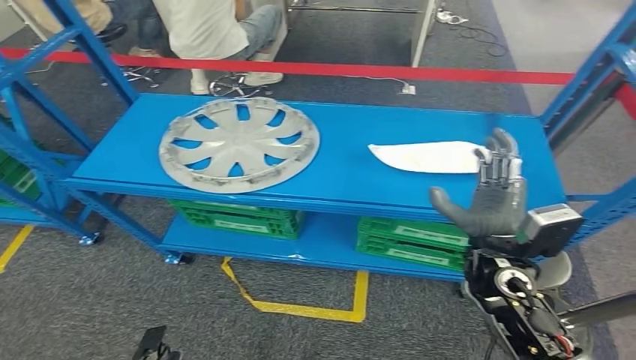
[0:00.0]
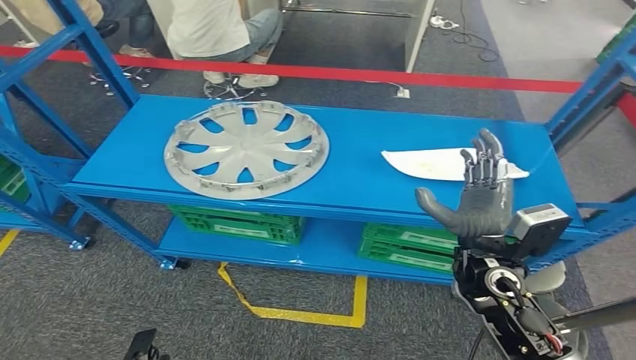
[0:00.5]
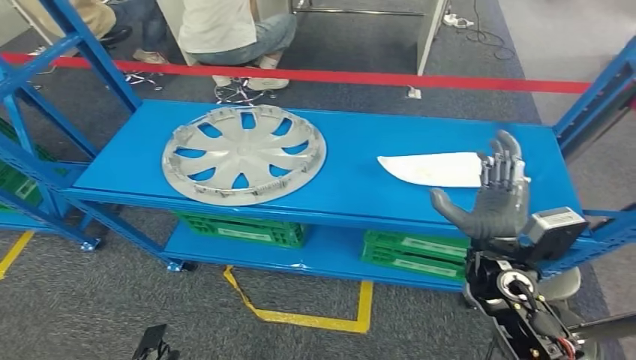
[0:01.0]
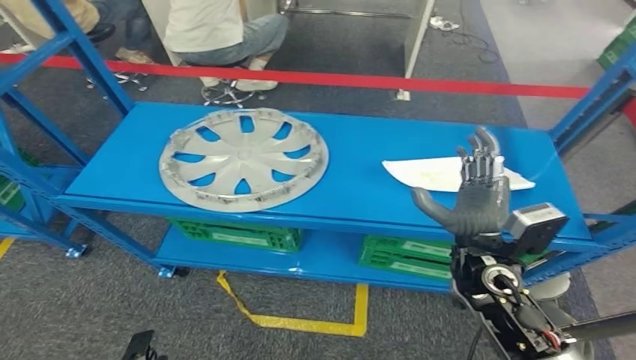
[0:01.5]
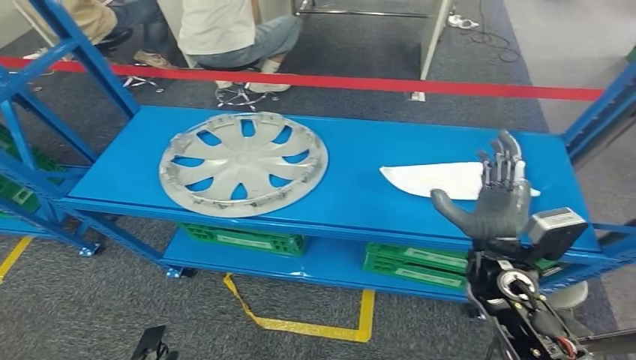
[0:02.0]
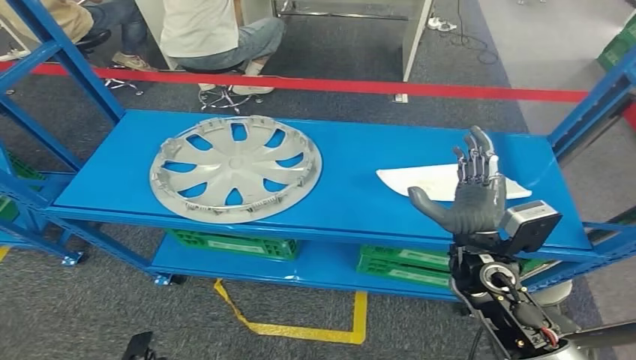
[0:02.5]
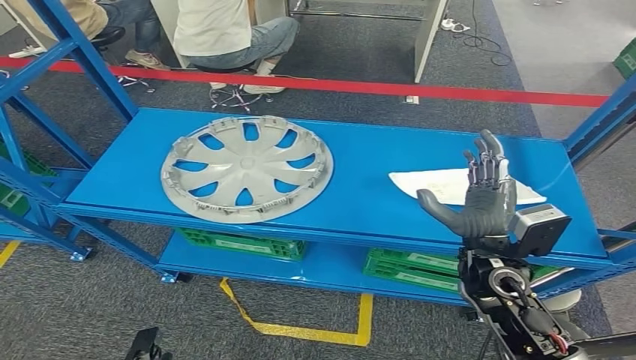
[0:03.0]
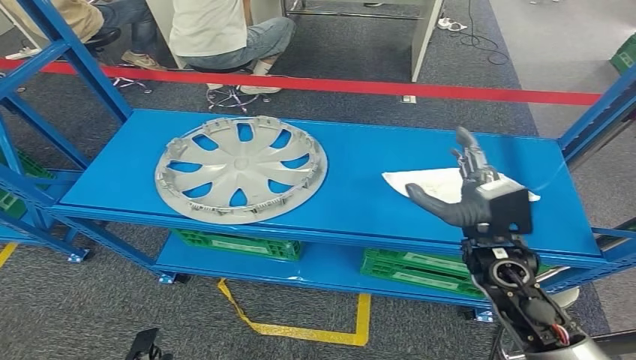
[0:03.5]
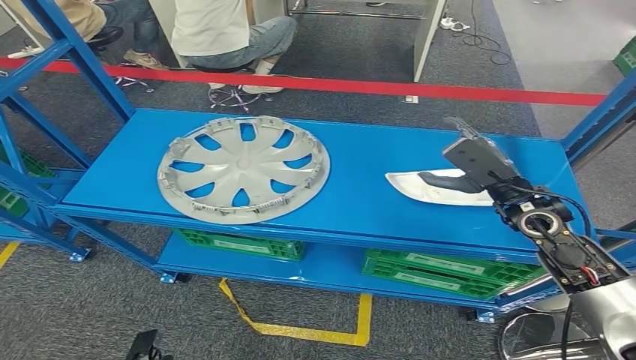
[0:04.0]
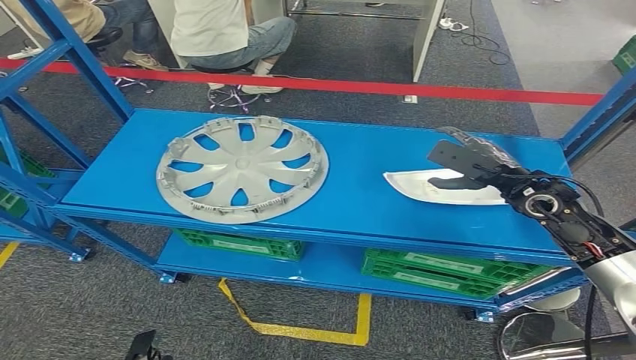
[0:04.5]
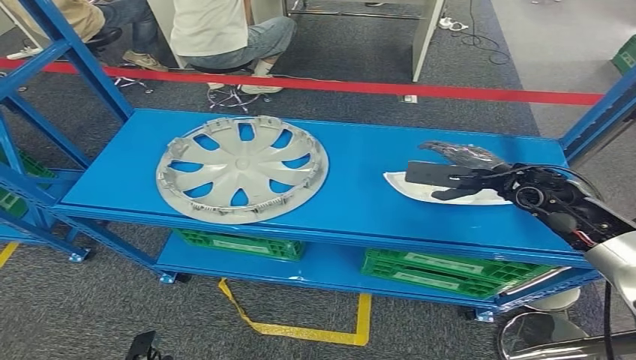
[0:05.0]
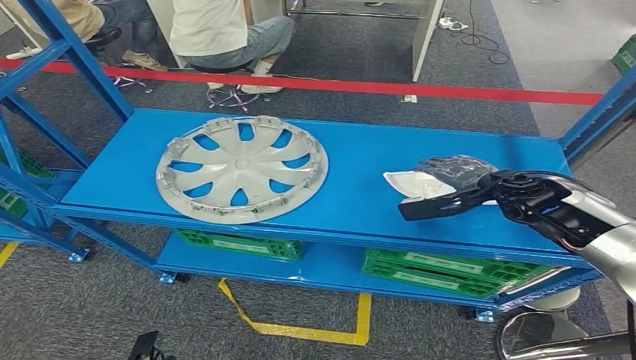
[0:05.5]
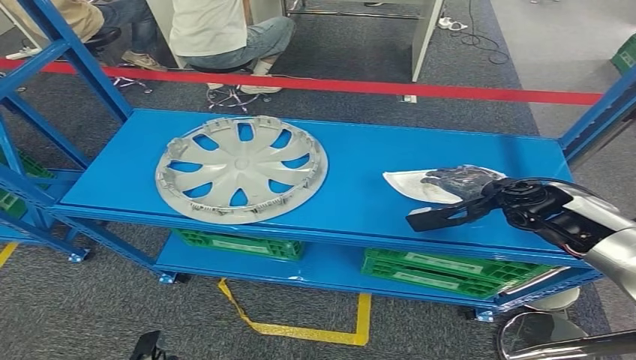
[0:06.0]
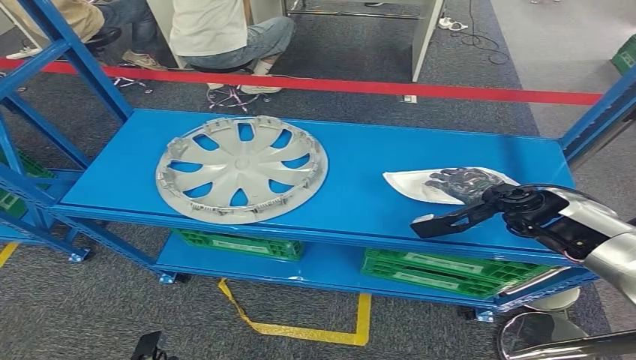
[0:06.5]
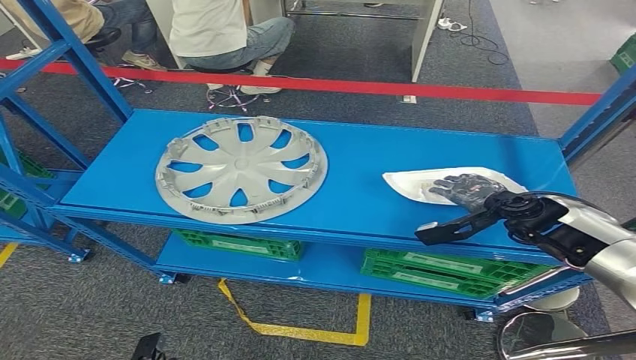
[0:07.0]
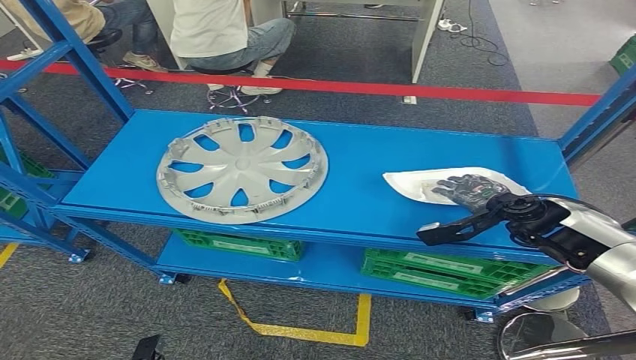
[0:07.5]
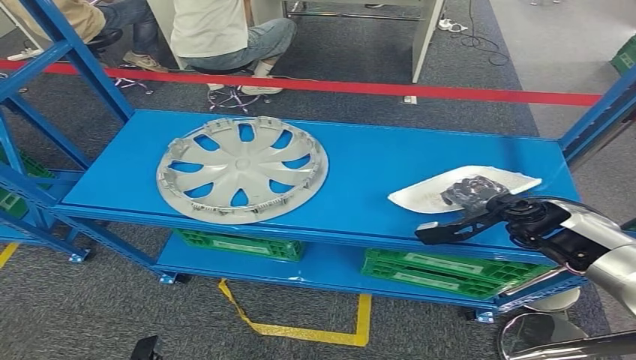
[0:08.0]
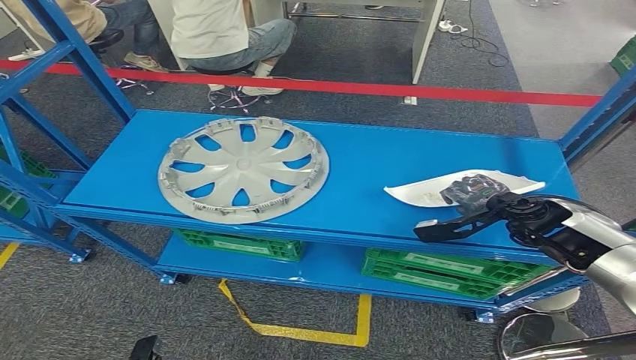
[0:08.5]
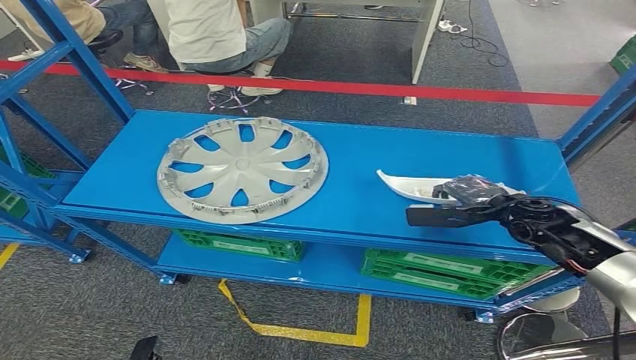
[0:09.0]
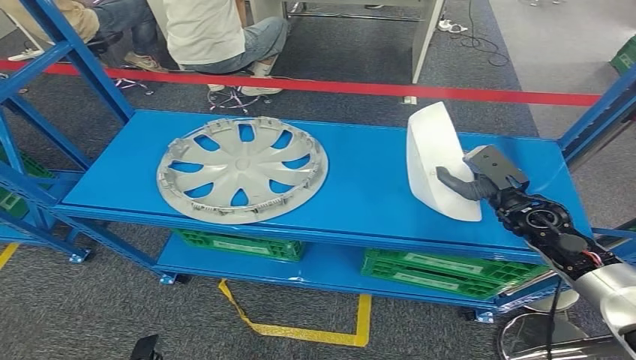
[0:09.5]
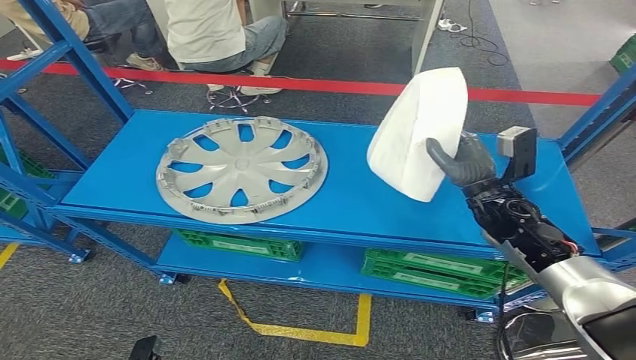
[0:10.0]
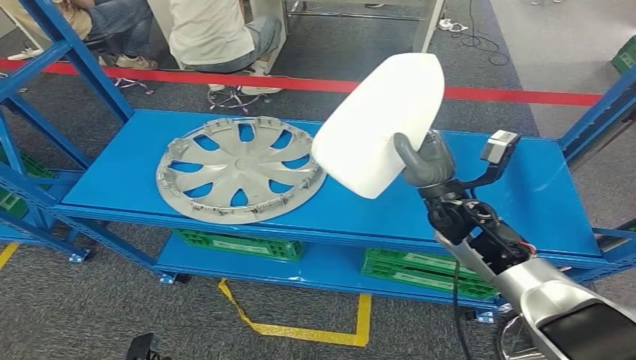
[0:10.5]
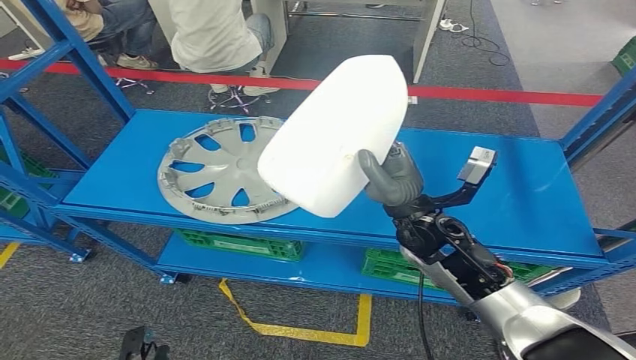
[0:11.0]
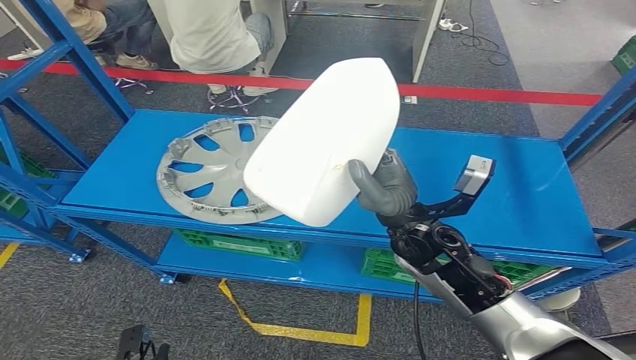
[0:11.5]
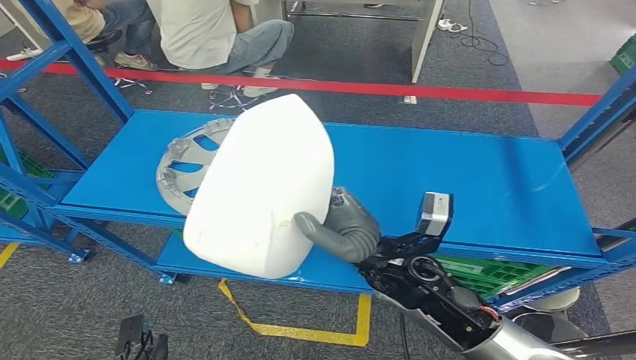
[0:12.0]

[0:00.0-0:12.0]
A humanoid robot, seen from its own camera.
Step, 0:00.0 to 0:10.5: Take small components from the rack.
0:06.0 to 0:08.0: The hands move only a little.

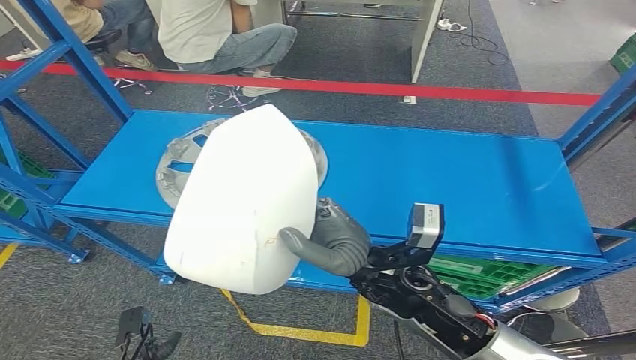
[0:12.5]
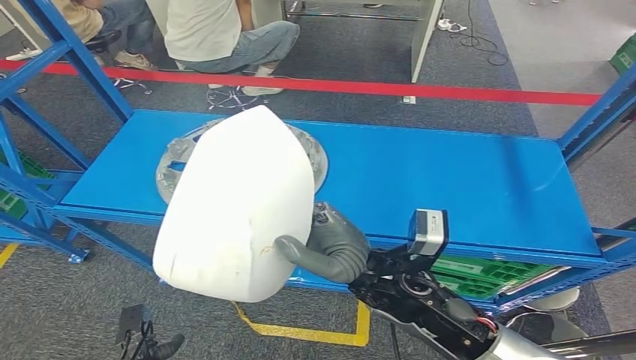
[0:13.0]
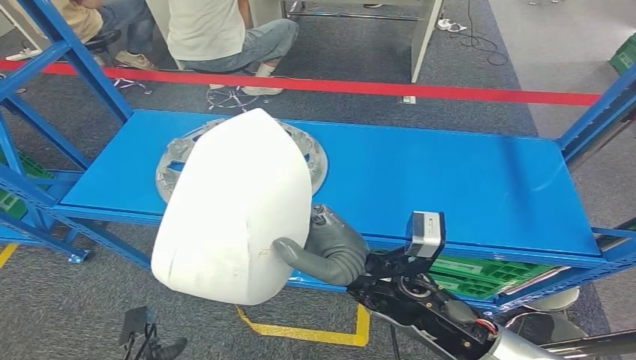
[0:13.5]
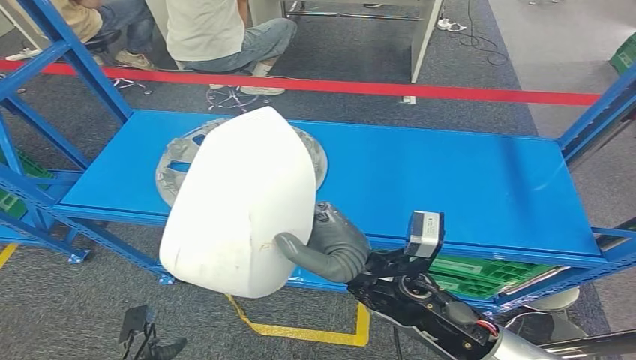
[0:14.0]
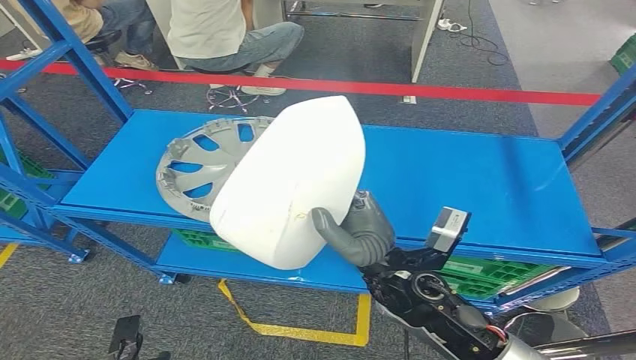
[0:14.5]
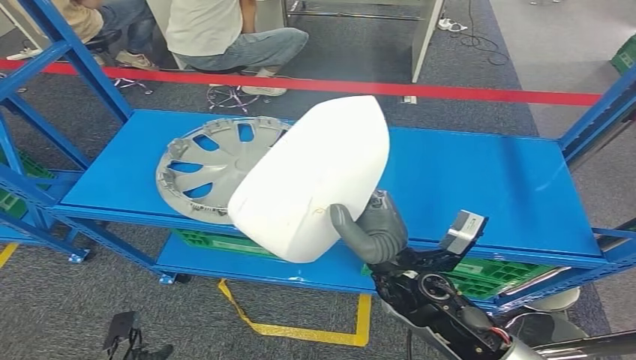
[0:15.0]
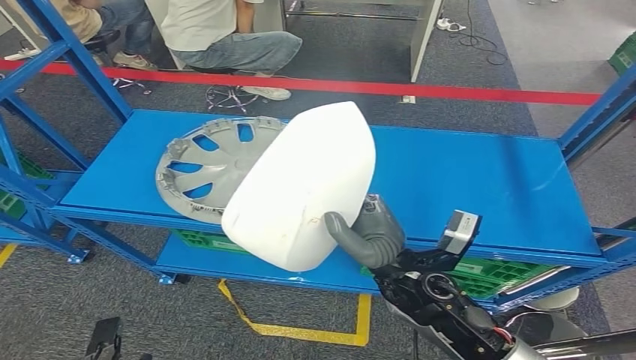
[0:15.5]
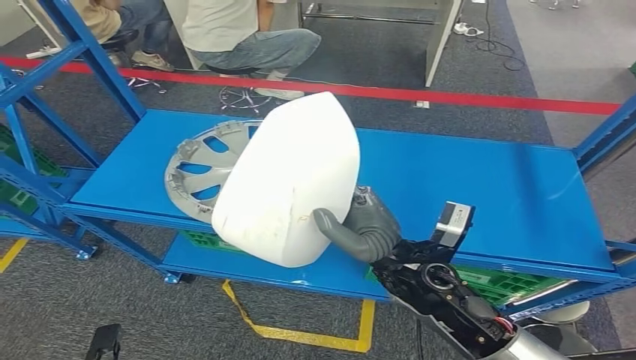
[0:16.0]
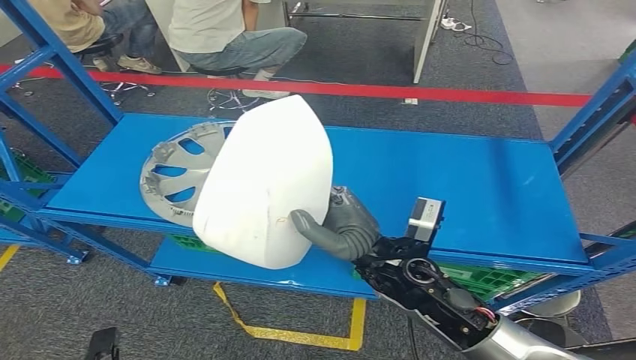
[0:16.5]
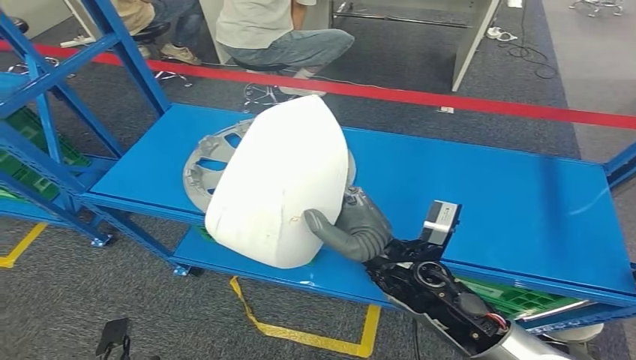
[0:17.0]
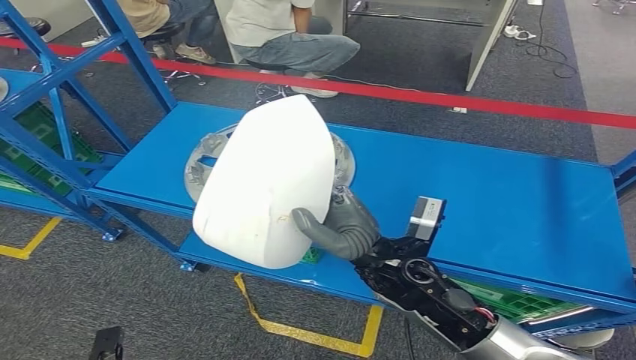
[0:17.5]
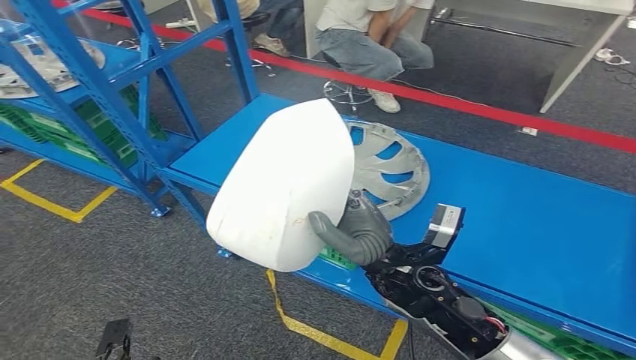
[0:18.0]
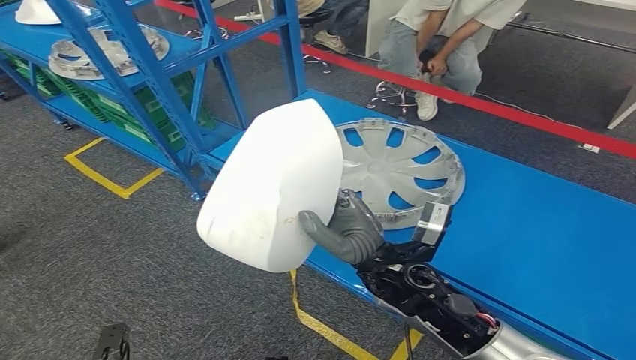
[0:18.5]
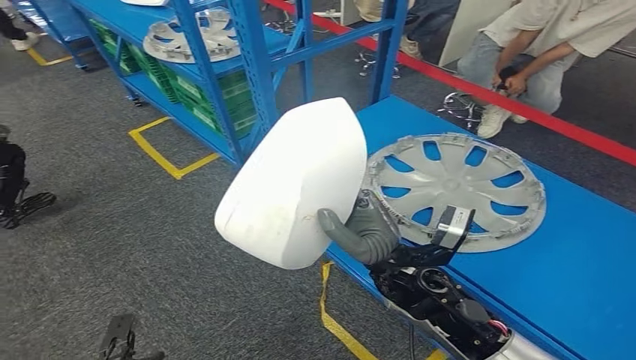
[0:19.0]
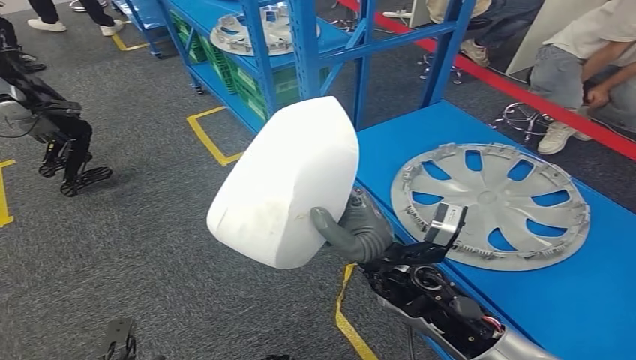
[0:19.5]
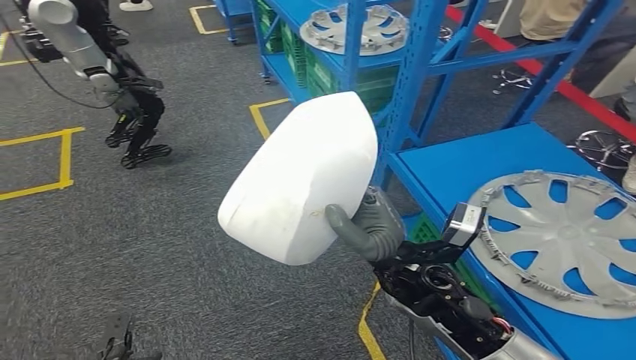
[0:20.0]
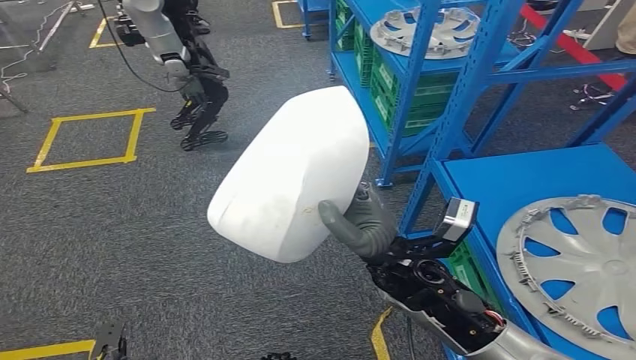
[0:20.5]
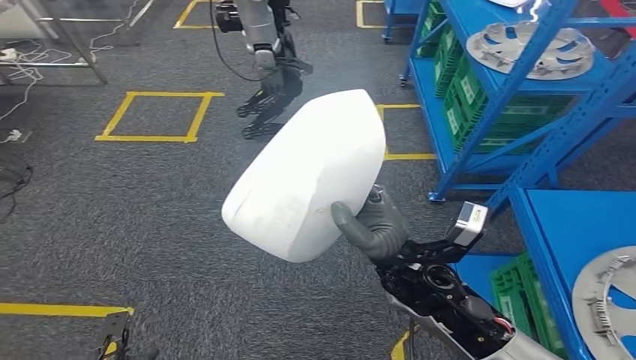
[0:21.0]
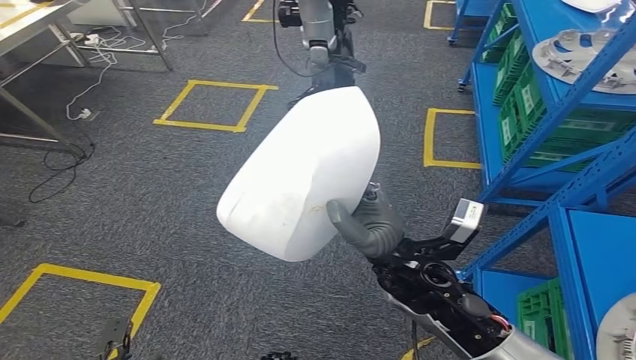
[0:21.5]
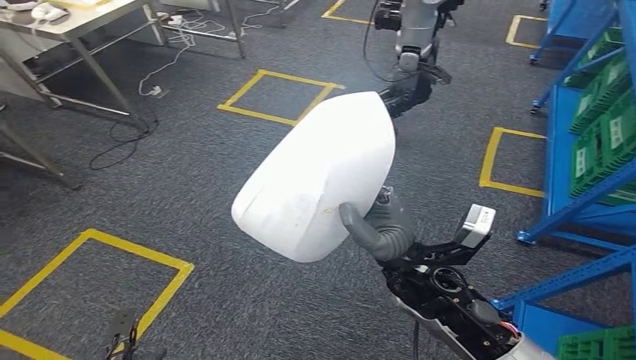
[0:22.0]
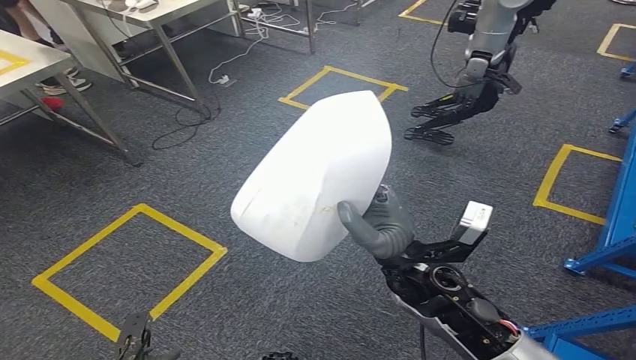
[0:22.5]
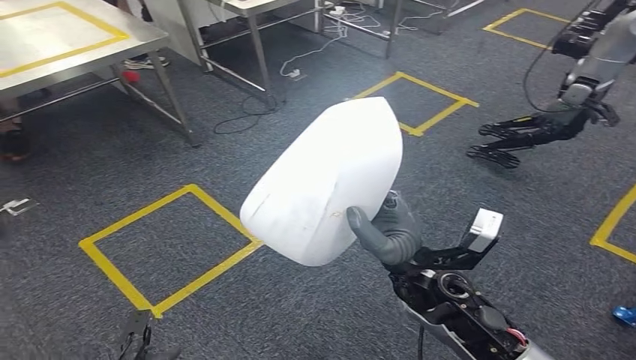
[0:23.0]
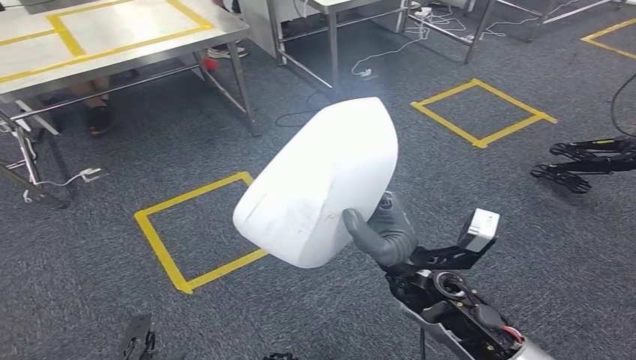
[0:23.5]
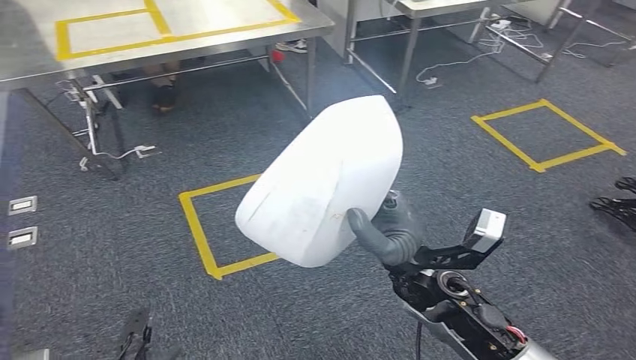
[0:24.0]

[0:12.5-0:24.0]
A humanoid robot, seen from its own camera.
0:12.5 to 0:14.5: There are only small adjustments of the hands.
